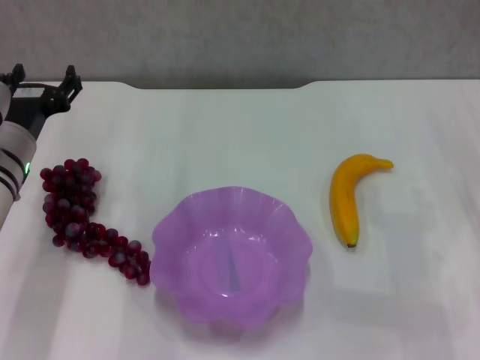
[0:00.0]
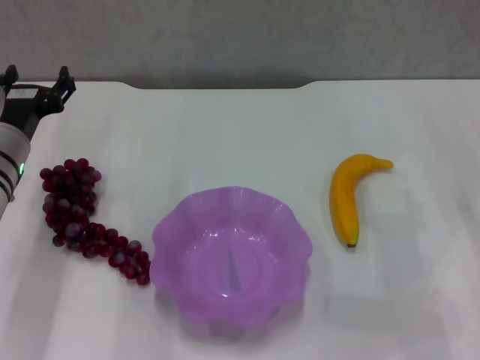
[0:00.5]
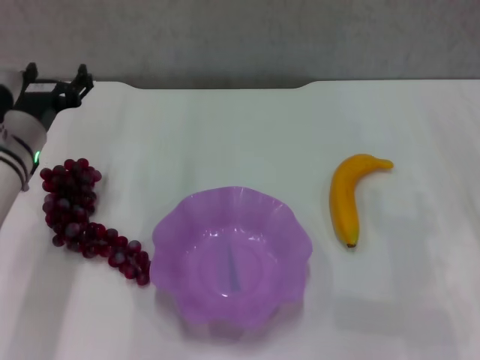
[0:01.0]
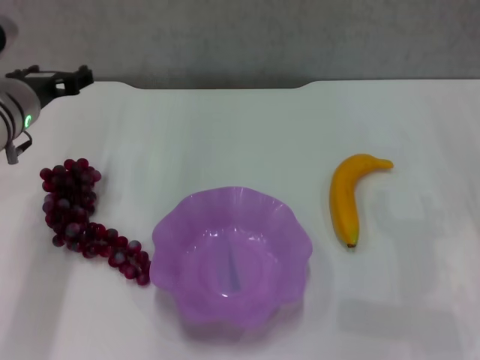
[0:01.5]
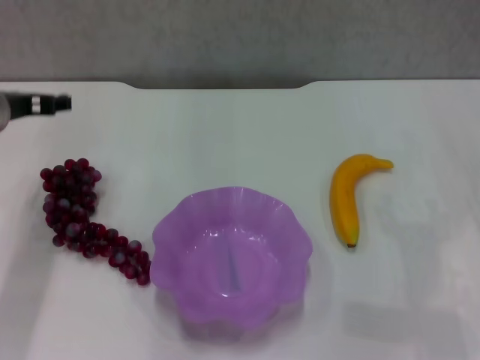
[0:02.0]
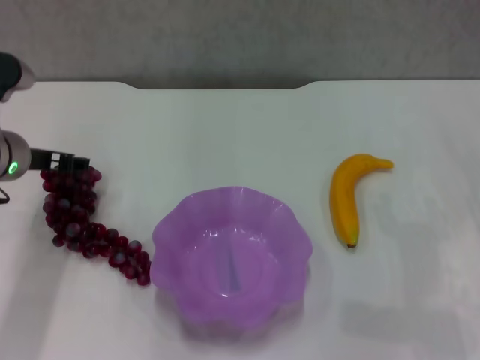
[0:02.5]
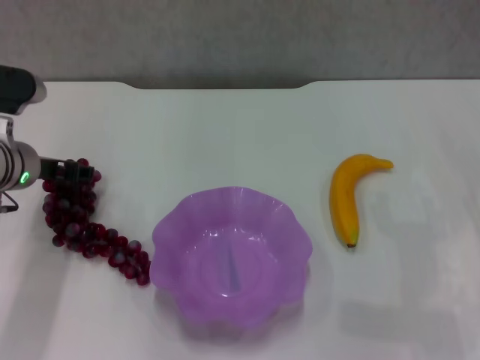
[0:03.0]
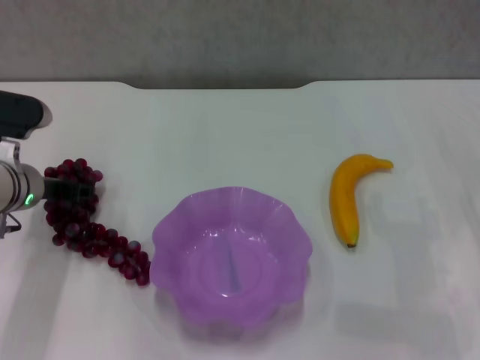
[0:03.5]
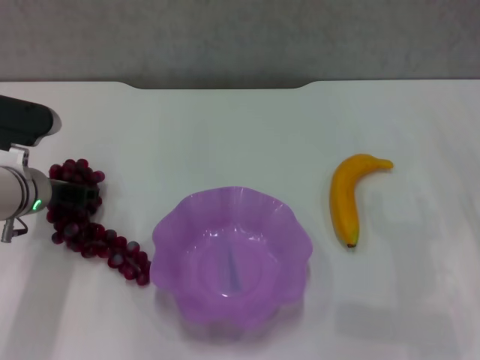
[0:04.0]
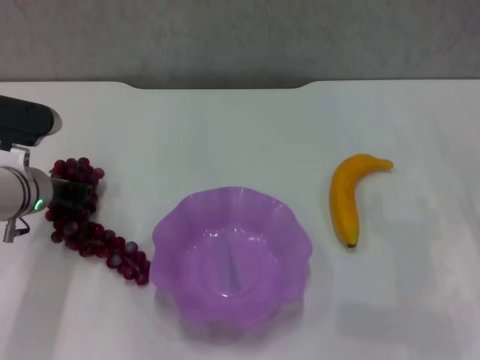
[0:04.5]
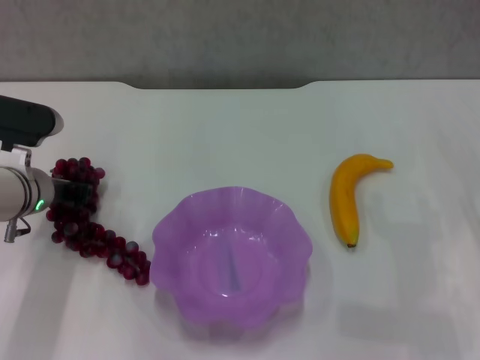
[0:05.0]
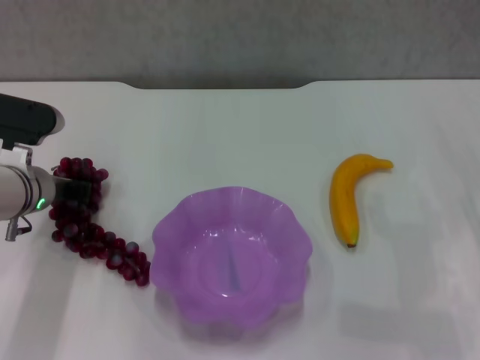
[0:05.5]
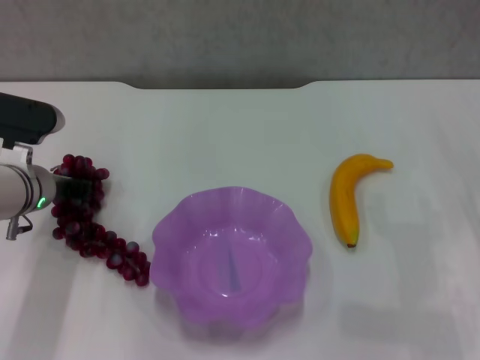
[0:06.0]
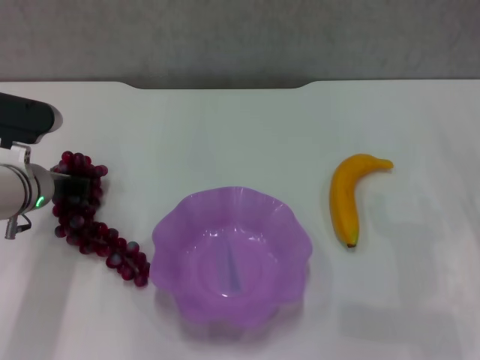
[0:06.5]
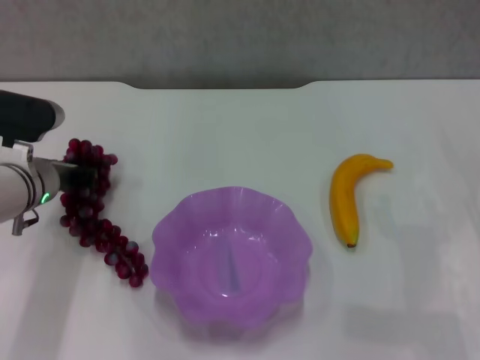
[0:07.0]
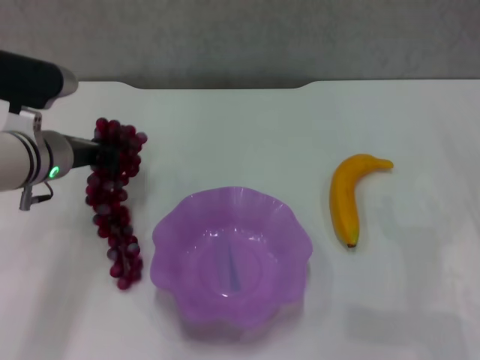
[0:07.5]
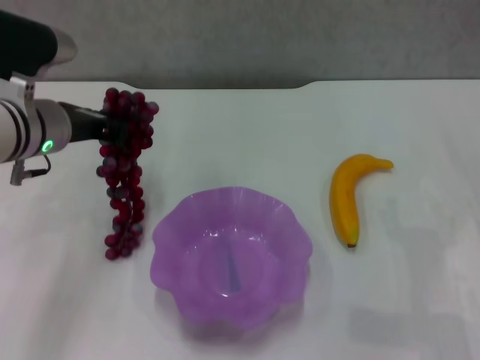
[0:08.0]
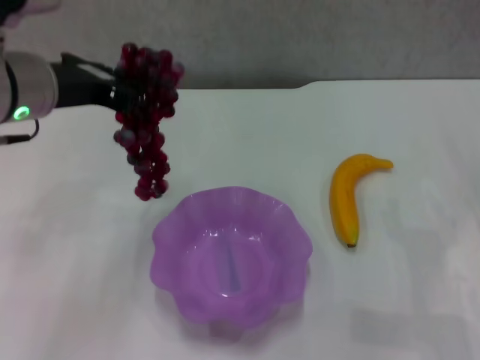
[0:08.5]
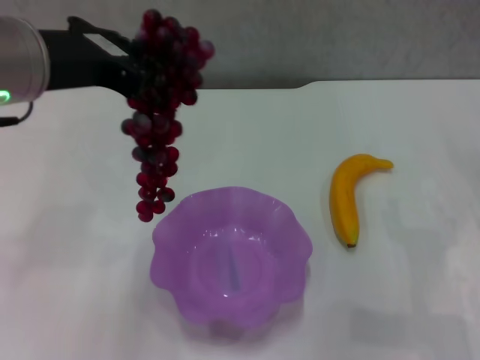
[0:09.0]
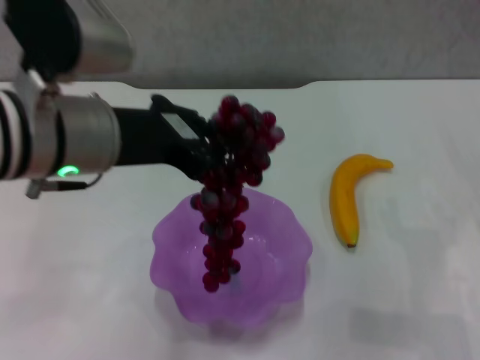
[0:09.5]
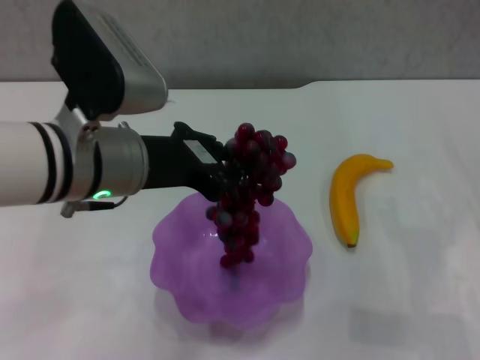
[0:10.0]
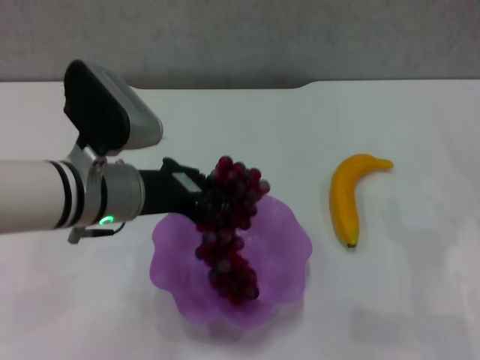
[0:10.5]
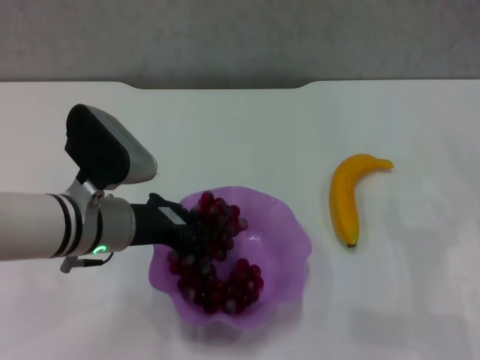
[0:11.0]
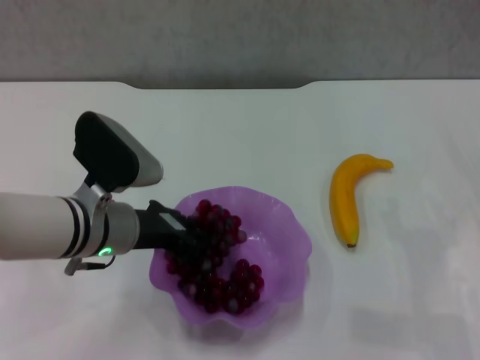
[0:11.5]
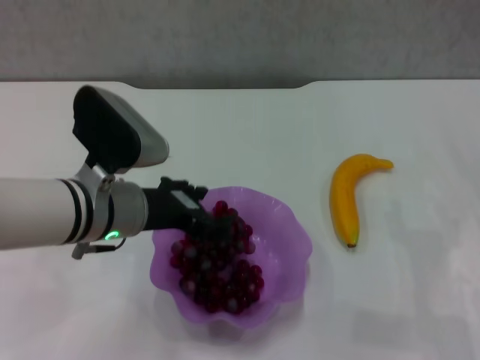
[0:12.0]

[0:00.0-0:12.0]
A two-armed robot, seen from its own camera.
Step, 0:00.0 to 0:04.0: Grasp the grape with left gripper.
Step, 0:04.5 to 0:11.5: Place the grape in the purple plate with left gripper.
0:00.0 to 0:02.0: The left gripper moves upward, some 5 cm.
0:02.0 to 0:04.0: The left gripper heads downward, covering roughly 10 cm.
0:04.0 to 0:06.0: The left gripper closes.
0:06.0 to 0:08.0: The left gripper heads upward, covering approximately 10 cm.
0:08.0 to 0:10.0: The left gripper travels backward and to the right by about 10 cm, and travels upward and back again, some 10 cm each way.
0:10.0 to 0:12.0: The left gripper is displaced downward by some 10 cm, and opens up.

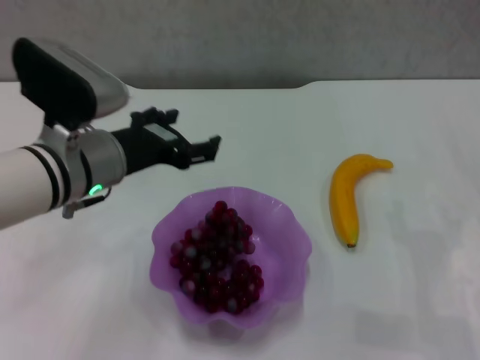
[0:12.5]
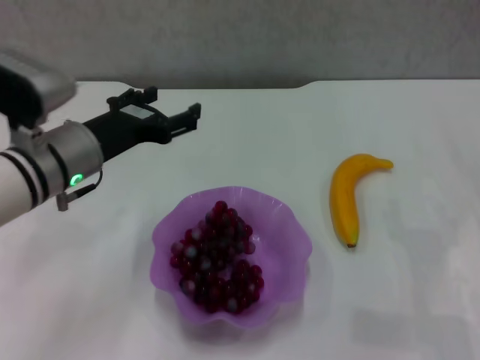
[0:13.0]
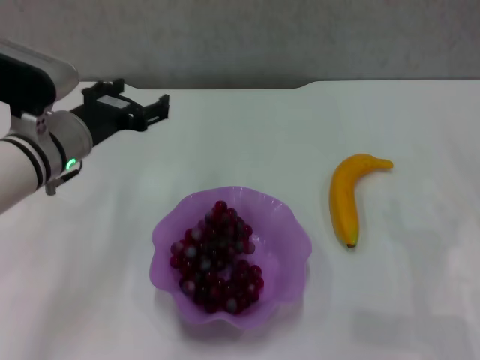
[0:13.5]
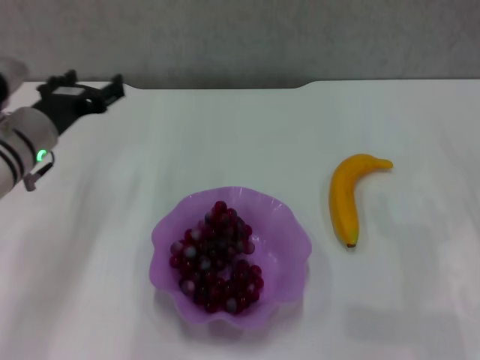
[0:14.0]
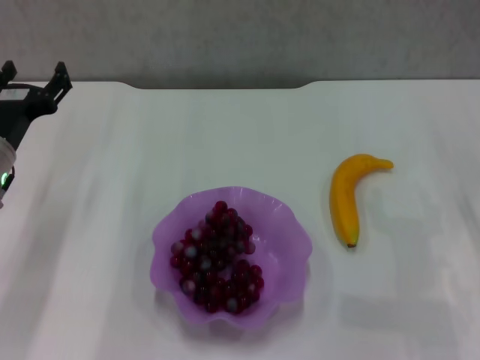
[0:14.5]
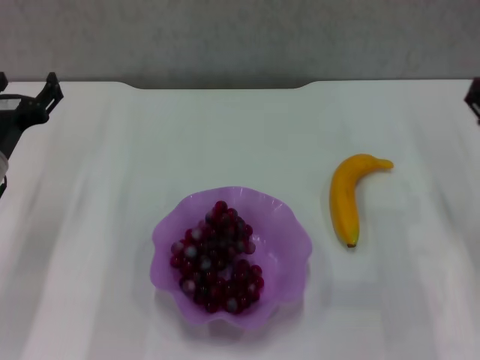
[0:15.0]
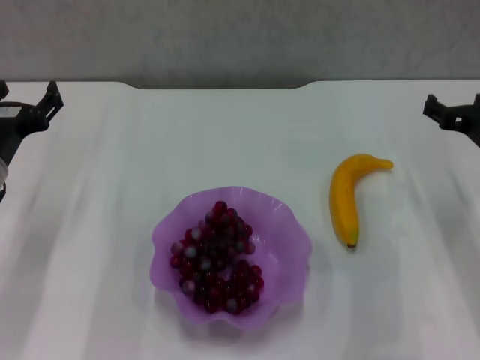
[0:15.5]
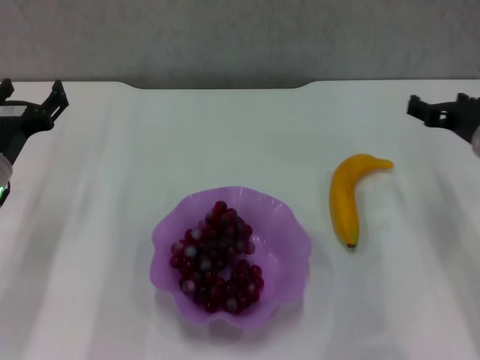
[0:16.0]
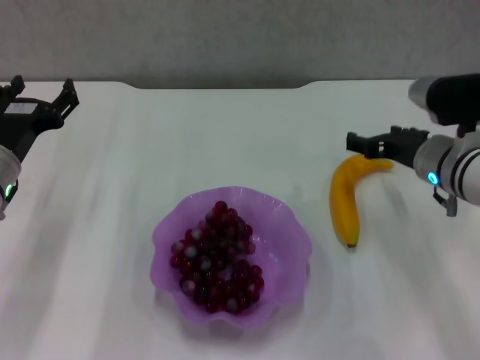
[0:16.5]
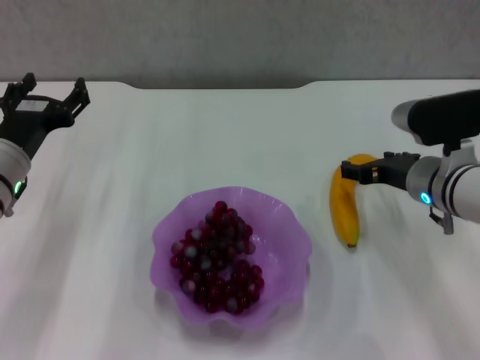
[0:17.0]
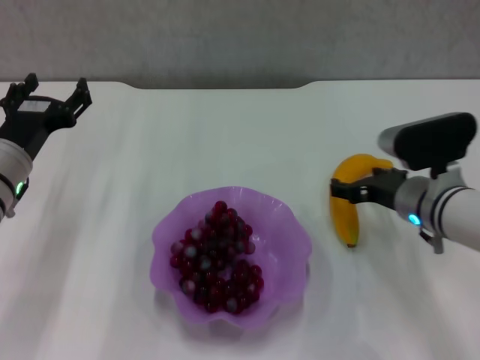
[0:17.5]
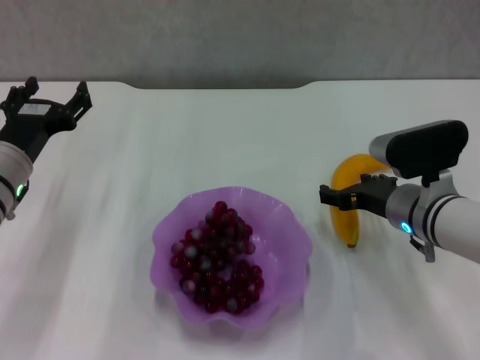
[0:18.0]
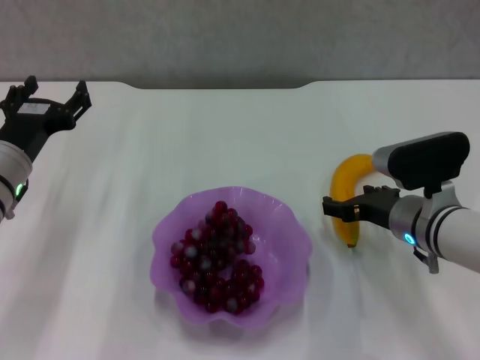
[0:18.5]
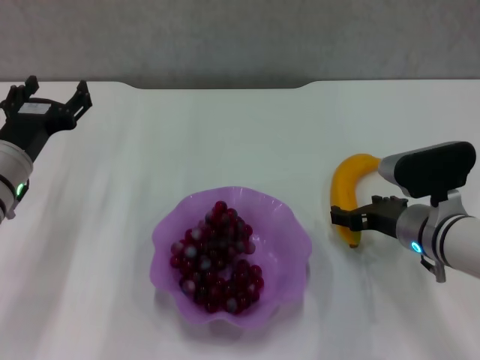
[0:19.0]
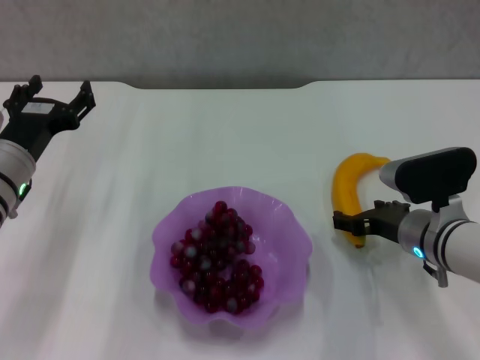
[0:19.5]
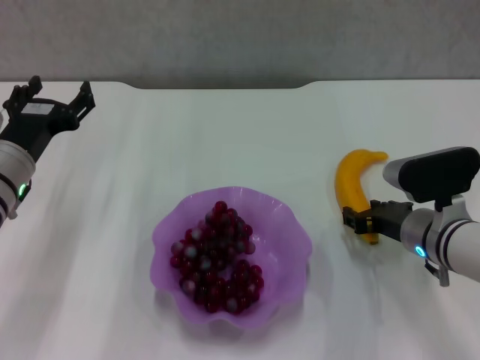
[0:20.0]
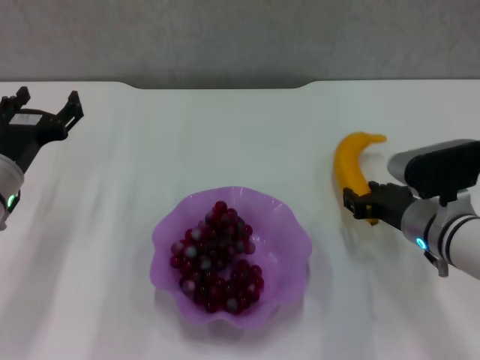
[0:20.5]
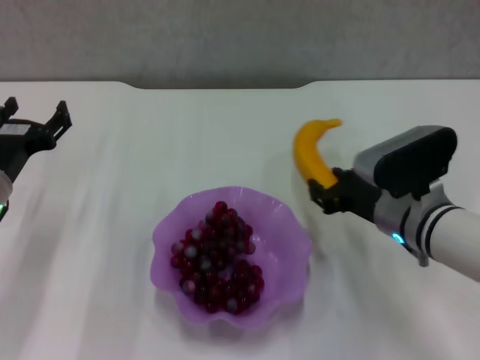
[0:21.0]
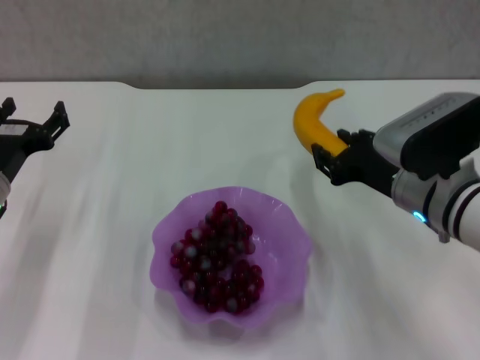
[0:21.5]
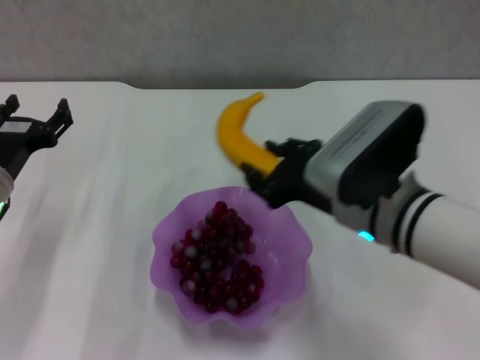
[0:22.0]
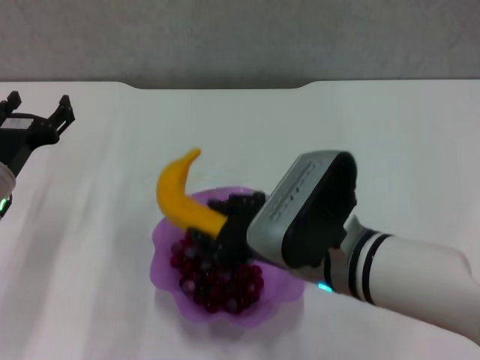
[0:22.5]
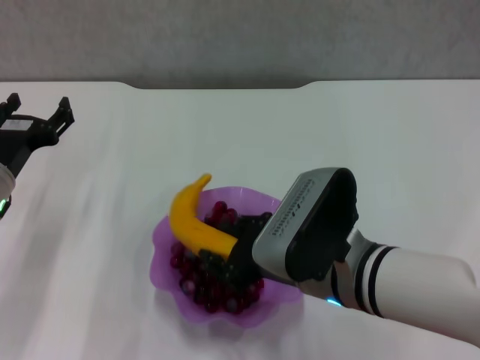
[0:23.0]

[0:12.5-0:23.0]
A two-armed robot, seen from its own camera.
Step, 0:12.5 to 0:20.0: Grasp the banana with right gripper.
0:12.5 to 0:14.5: The left gripper travels to the left and downward by roughly 10 cm.
0:14.5 to 0:16.5: The right gripper heads to the left and forward, covering some 10 cm.
0:16.5 to 0:19.0: The right gripper moves downward, roughly 5 cm.
0:19.0 to 0:21.0: The right gripper closes its fingers.
0:21.0 to 0:23.0: The right gripper is displaced to the left and backward by about 10 cm.

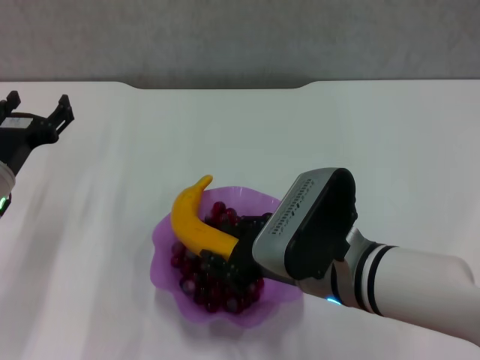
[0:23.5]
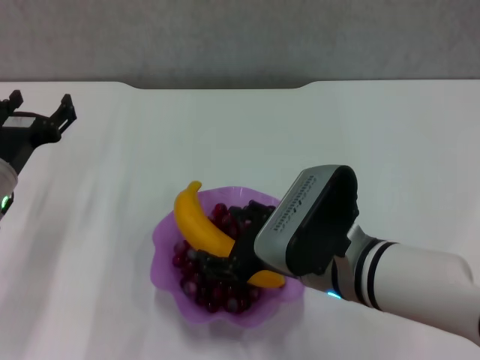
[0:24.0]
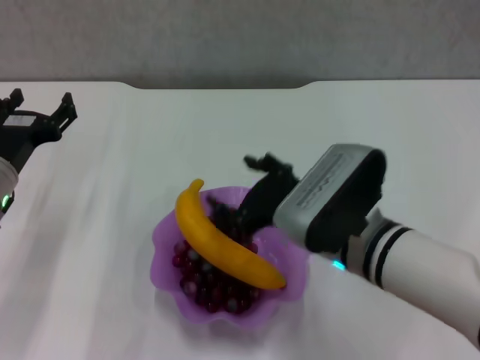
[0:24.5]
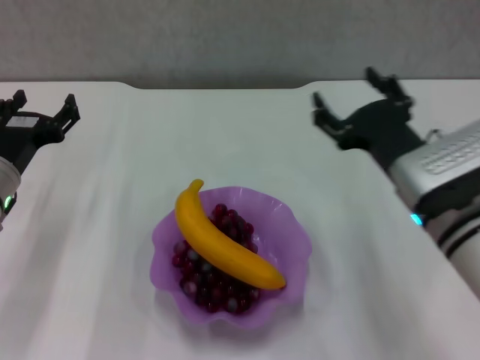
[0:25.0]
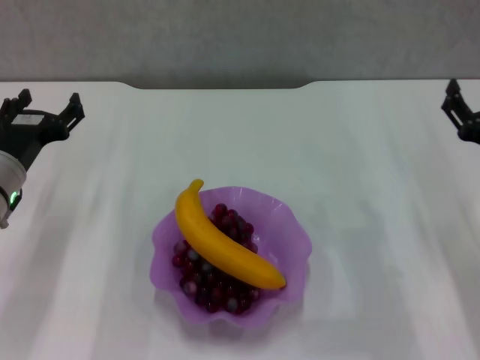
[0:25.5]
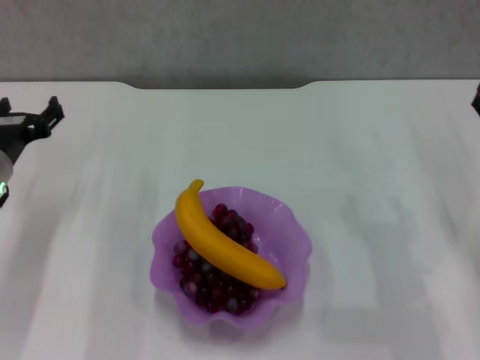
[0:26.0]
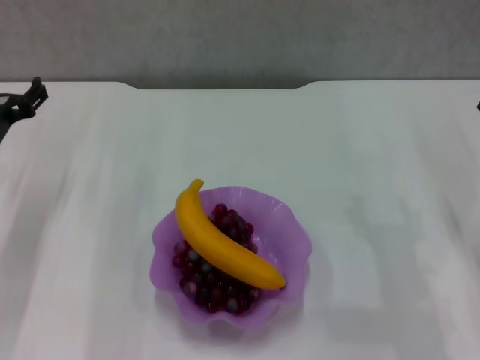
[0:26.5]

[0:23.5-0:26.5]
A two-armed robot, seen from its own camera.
0:23.5 to 0:25.0: The right gripper goes about 10 cm to the right, and opens up.
0:25.0 to 0:26.5: The right gripper moves to the right, about 15 cm.
